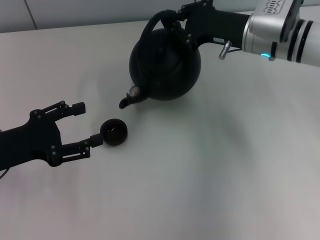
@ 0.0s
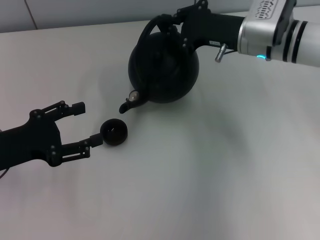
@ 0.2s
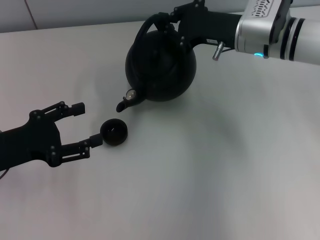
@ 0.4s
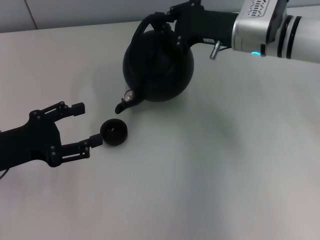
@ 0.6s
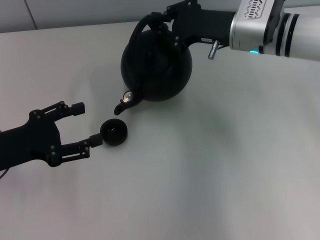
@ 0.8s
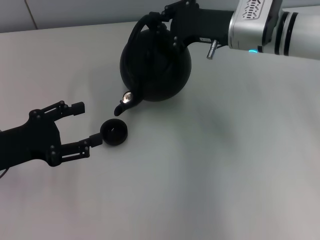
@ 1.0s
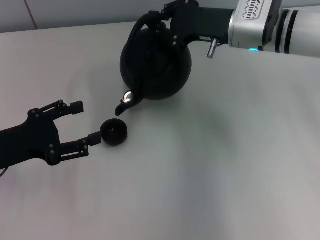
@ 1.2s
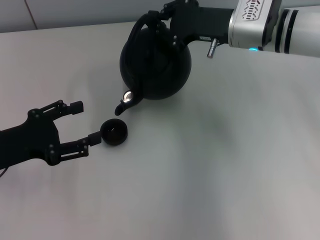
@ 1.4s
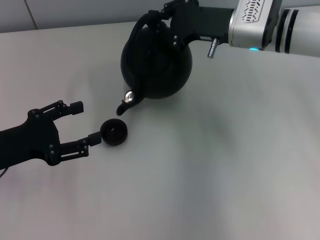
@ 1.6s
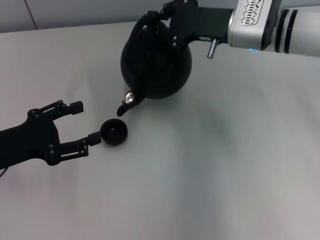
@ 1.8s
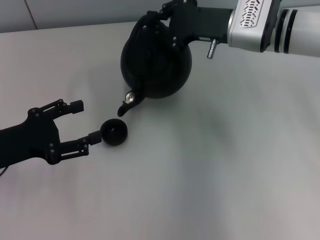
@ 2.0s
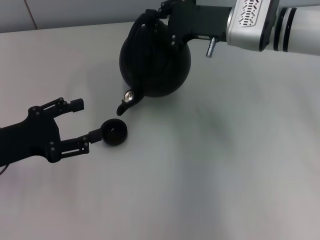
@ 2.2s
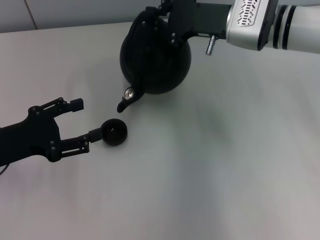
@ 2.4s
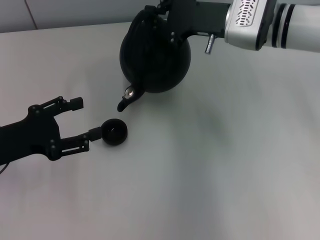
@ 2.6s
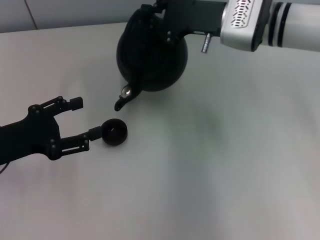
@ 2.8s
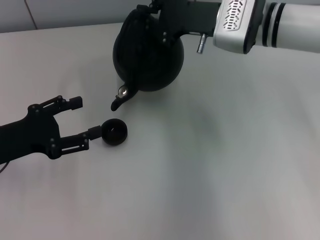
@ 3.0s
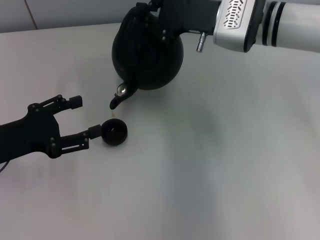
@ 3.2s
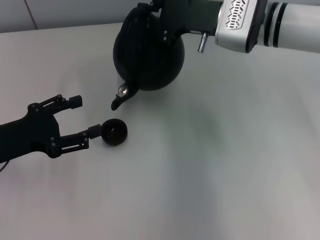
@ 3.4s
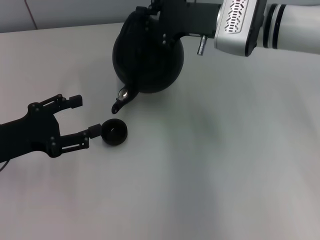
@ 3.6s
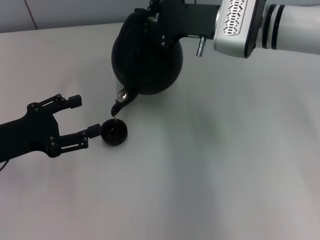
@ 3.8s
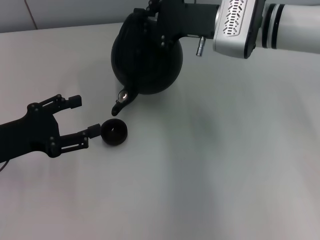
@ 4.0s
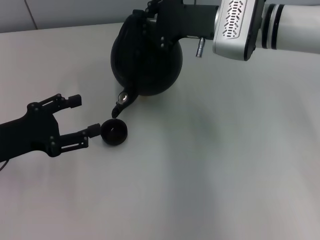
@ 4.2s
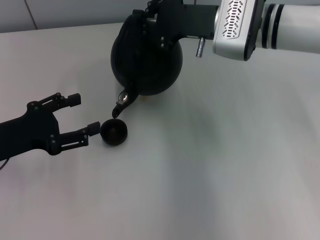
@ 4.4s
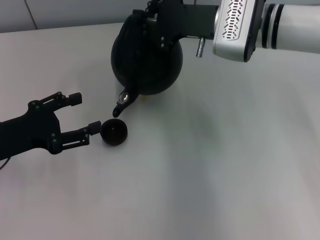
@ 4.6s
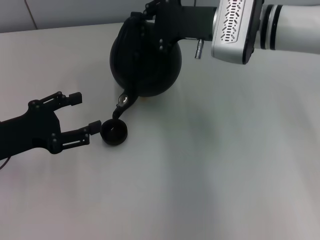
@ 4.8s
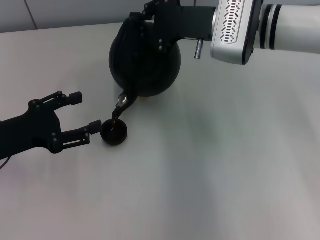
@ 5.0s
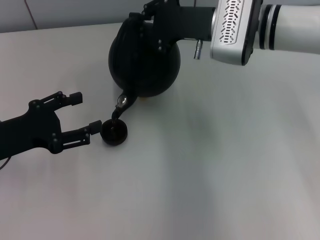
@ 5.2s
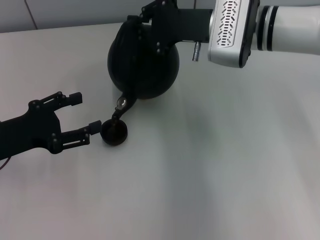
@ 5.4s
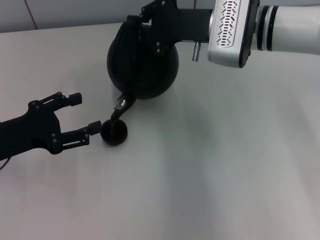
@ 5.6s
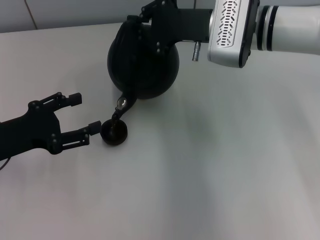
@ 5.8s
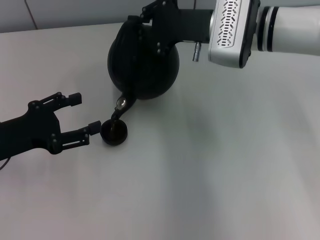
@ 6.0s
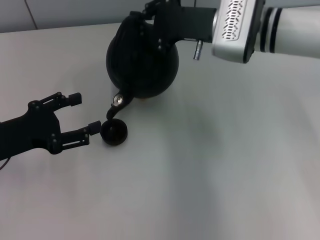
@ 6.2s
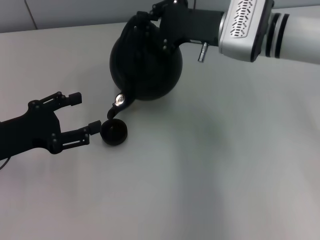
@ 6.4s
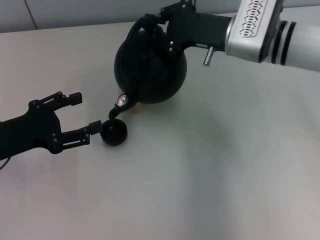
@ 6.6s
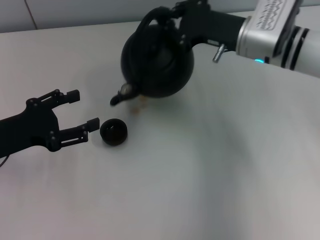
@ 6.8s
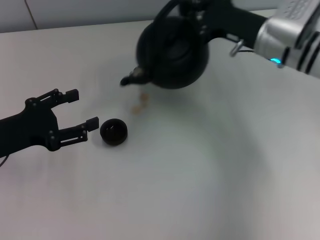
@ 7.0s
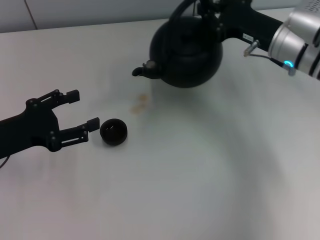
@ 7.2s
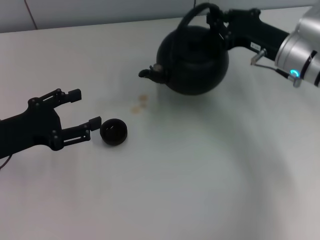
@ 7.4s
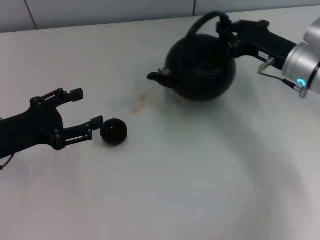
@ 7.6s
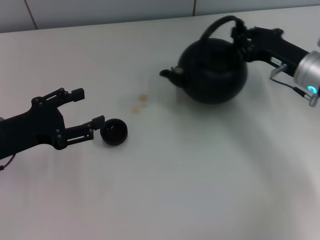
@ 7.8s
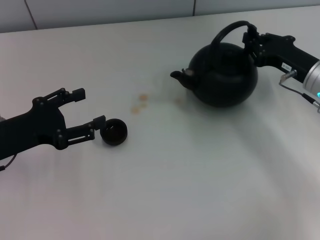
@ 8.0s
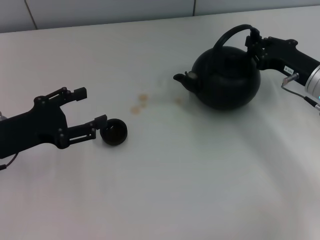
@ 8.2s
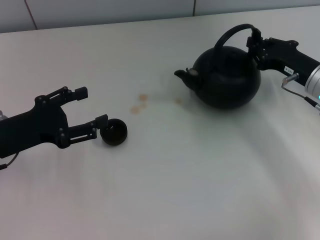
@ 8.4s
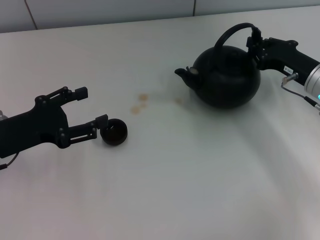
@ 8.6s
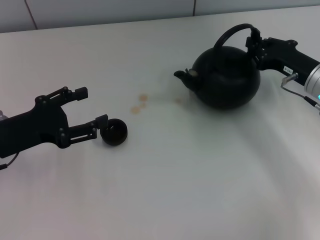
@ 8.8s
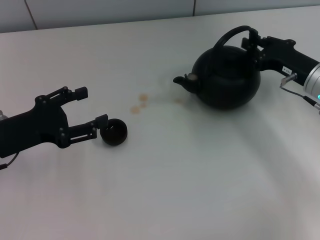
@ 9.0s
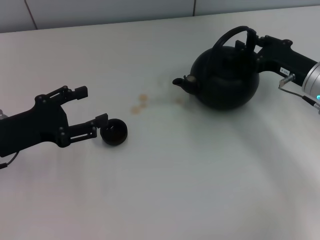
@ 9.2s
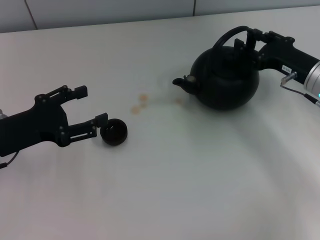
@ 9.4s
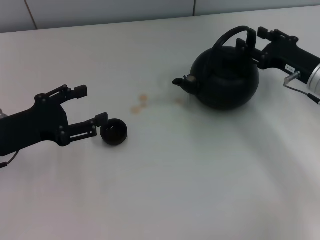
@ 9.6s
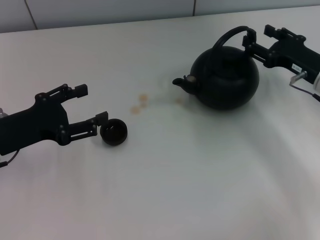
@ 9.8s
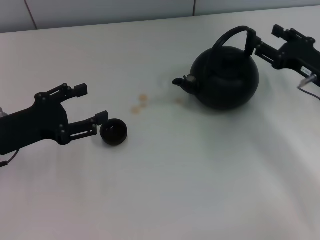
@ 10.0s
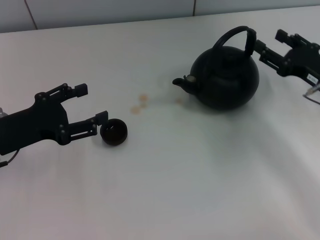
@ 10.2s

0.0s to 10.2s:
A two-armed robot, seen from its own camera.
Task of the whole recording: Grasp the handle of the teapot with one hand and pour tea into the teacup.
0.0s to 3.0s: The grippers stay close to where they were, moving slightly.
3.0s to 4.4s: The two grippers keep their place.
4.4s to 5.8s: Both grippers stay put.
5.8s to 7.2s: The right gripper goes about 10 cm to the right.
7.2s to 8.8s: The right gripper goes roughly 5 cm to the right.
8.8s to 10.2s: The right gripper opens up.

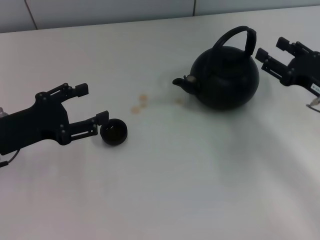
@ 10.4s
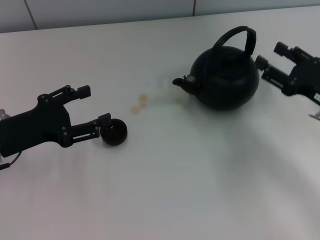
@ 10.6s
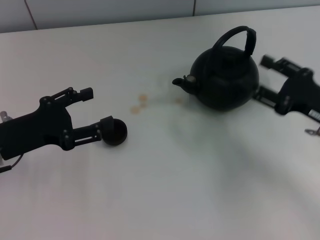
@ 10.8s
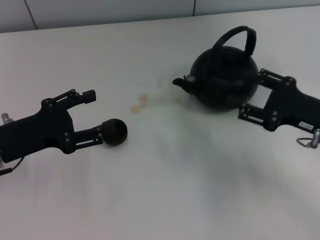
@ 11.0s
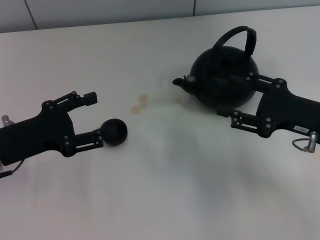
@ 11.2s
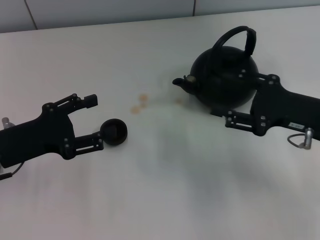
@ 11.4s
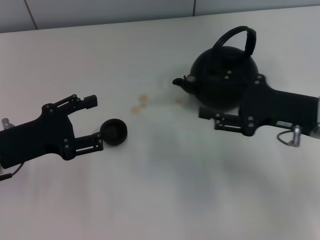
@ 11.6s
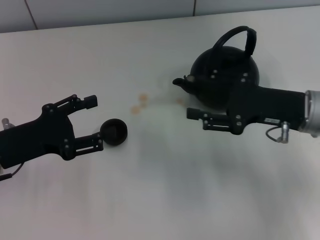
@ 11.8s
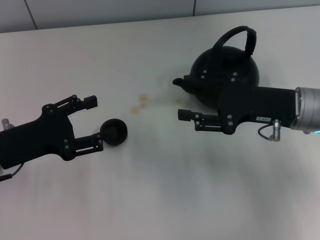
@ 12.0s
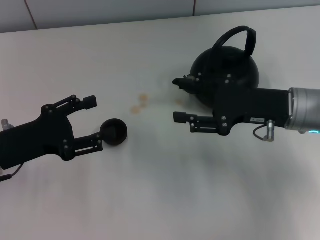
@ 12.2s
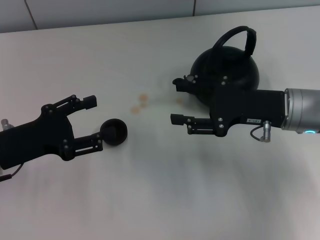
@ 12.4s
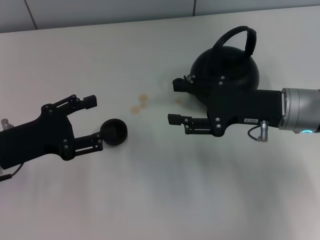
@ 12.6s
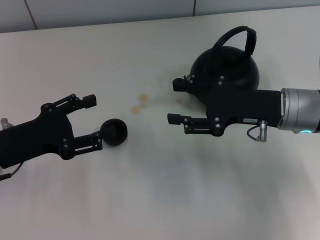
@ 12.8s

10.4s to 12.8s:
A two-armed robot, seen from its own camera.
Task of the whole recording: Grasp the handle of the teapot with one hand and pour tea into the teacup.
10.4s to 11.6s: The right gripper moves to the left, approximately 5 cm.
11.6s to 12.8s: The grippers make only small movements.

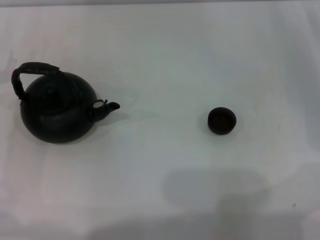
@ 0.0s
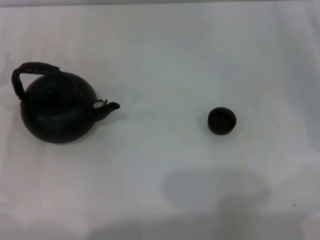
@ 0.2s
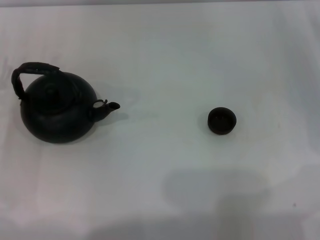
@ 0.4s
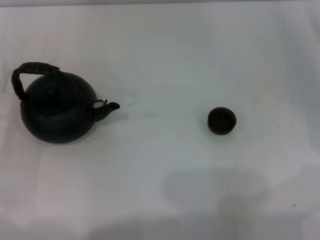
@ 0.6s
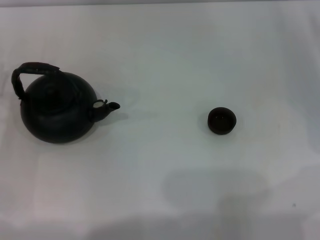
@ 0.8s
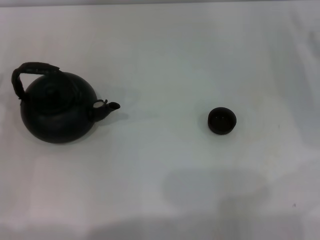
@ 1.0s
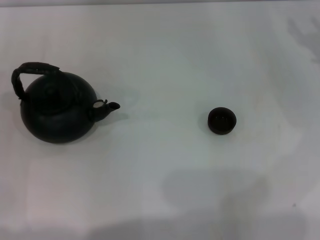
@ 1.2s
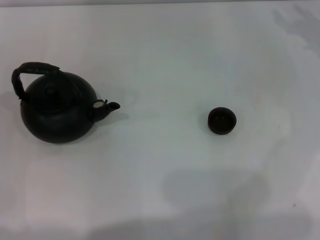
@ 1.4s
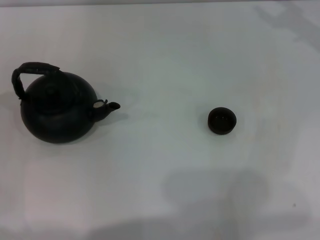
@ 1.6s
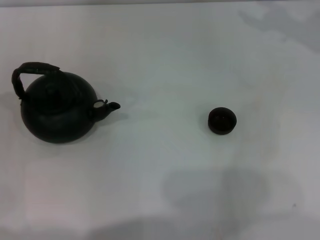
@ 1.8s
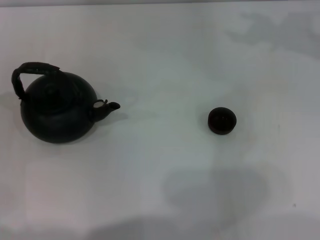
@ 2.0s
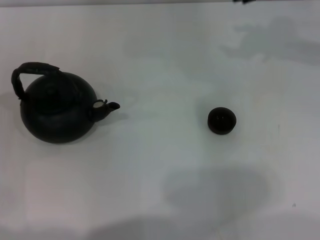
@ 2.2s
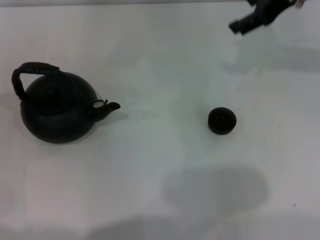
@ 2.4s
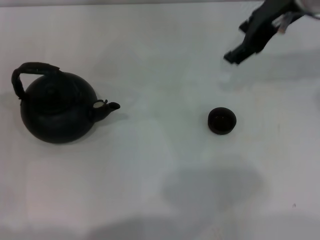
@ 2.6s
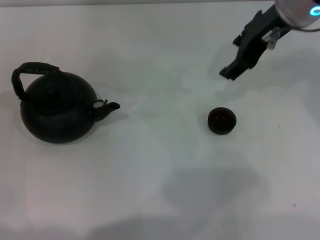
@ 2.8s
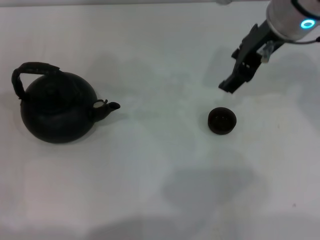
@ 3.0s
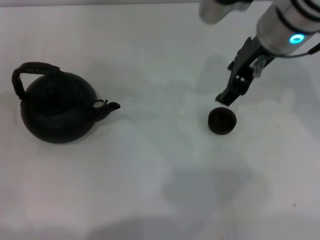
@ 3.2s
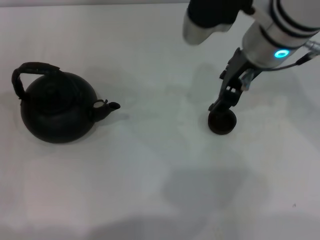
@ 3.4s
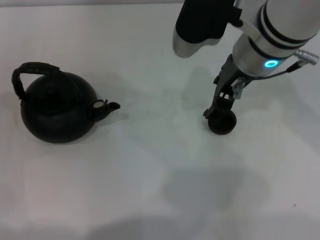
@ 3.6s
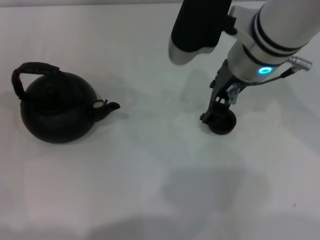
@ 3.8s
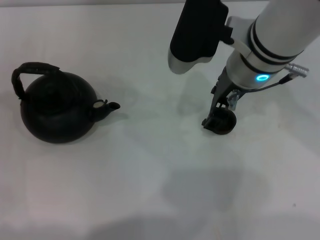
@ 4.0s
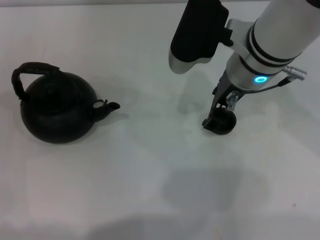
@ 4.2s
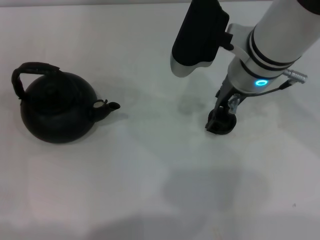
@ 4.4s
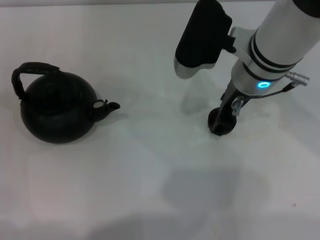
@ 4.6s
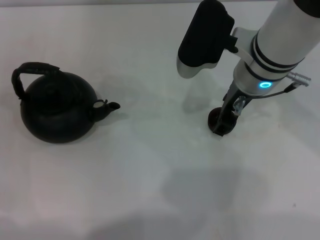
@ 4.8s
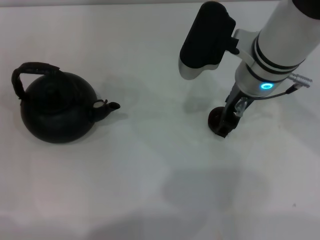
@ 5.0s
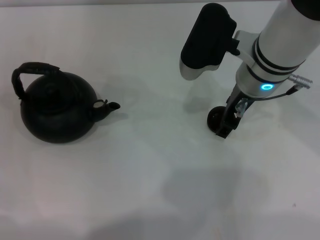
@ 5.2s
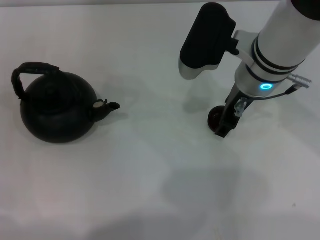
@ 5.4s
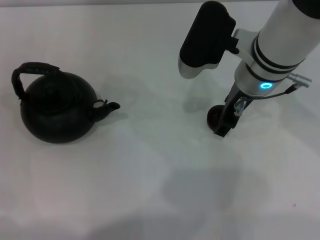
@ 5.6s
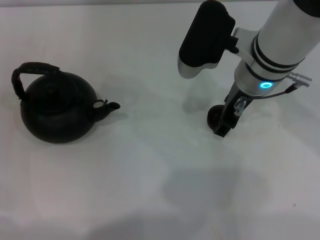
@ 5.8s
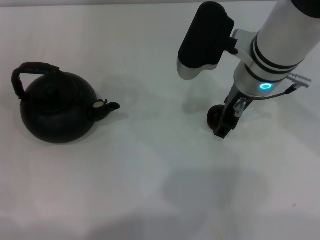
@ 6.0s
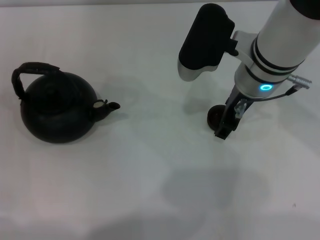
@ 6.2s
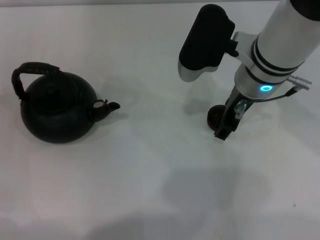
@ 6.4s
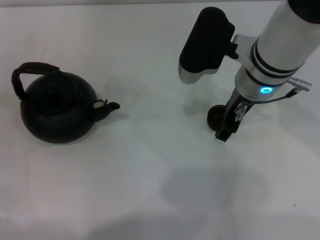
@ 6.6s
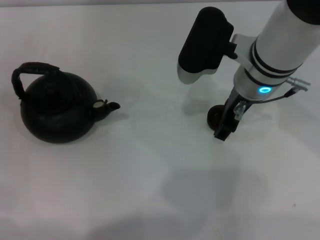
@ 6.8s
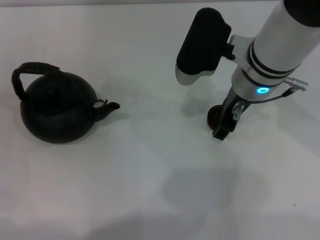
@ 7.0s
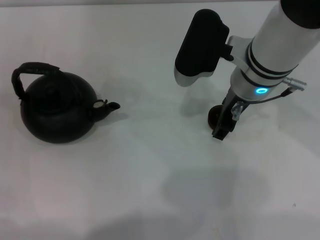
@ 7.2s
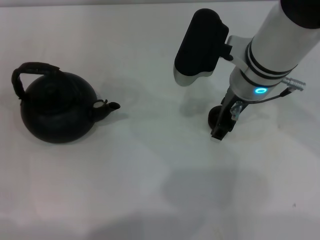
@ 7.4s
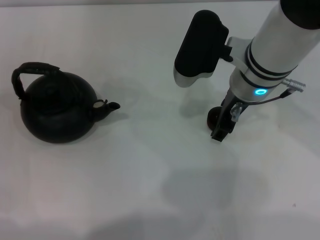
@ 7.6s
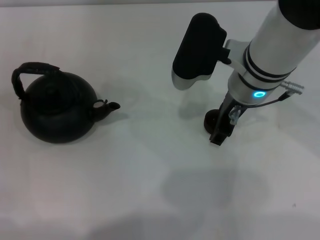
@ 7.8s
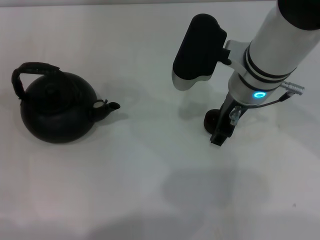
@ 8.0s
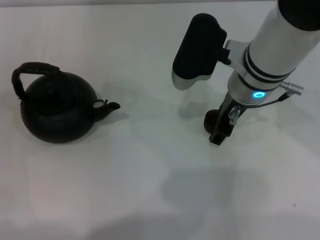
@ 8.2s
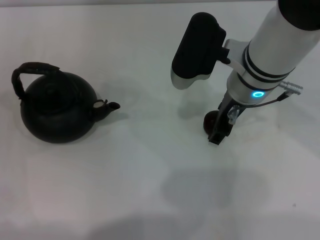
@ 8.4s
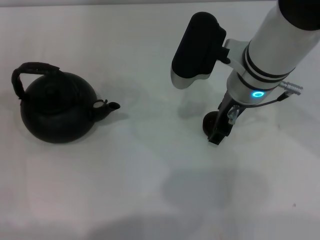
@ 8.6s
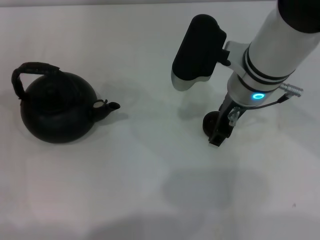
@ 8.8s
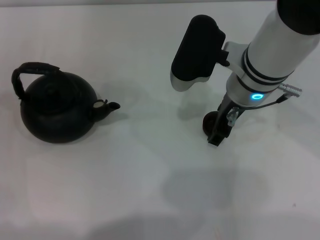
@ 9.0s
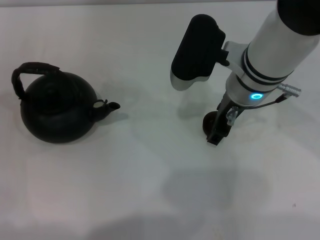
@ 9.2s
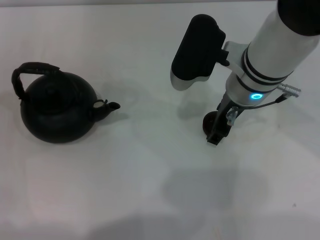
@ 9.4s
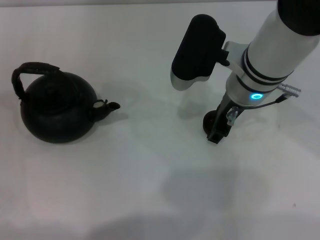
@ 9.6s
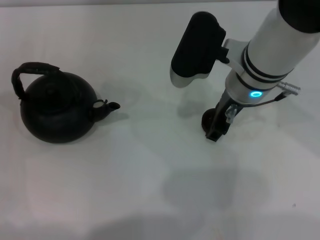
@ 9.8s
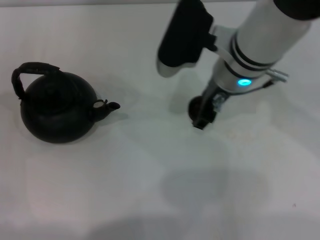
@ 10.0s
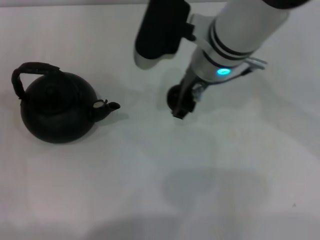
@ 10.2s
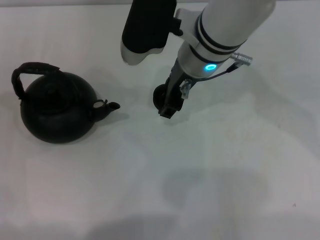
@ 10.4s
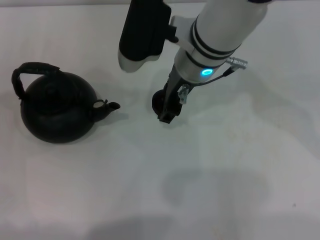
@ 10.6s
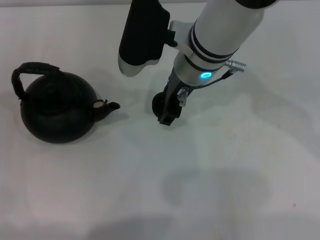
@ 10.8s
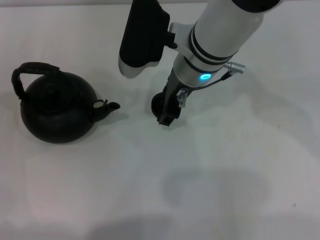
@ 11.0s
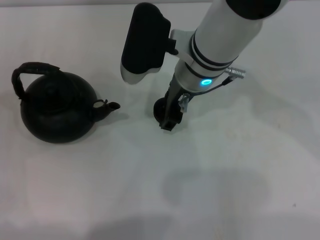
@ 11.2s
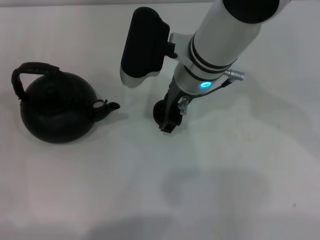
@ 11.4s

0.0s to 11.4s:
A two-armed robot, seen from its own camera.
Task of the whole recording: Grasp the handle of the teapot with one hand and pour tea into the teacup.
Step, 0.0s to 9.8s: Pick up the teacup with the right gripper.
1.4s to 2.8s: The right gripper moves to the left and upward, some 20 cm.
2.8s to 4.2s: The right gripper heads downward and to the left, covering some 10 cm.
4.2s to 5.6s: The grippers move only a little.
5.6s to 8.6s: The two grippers keep their place.
8.6s to 10.0s: The grippers stay close to where they were, moving slightly.
10.0s to 11.4s: The grippers make only small movements.
